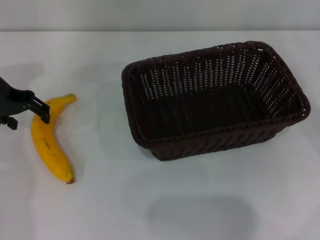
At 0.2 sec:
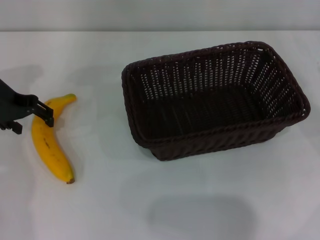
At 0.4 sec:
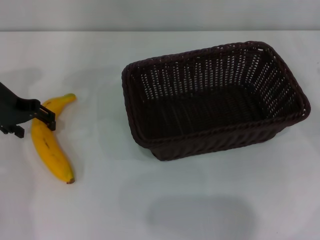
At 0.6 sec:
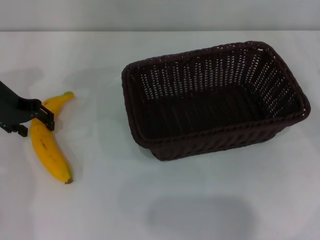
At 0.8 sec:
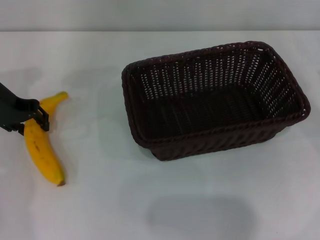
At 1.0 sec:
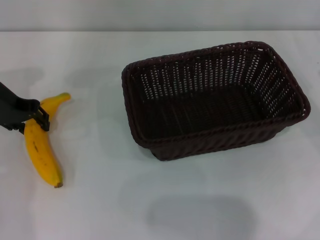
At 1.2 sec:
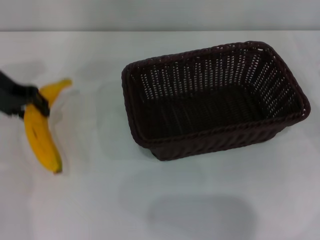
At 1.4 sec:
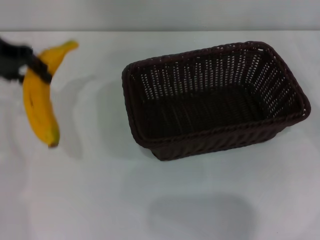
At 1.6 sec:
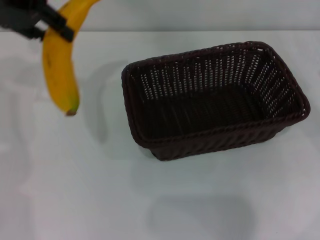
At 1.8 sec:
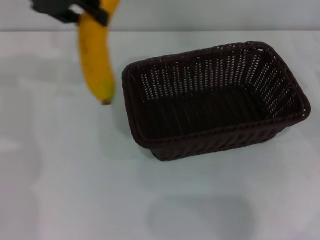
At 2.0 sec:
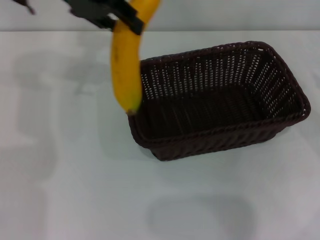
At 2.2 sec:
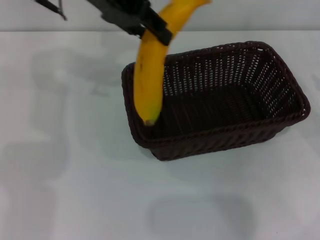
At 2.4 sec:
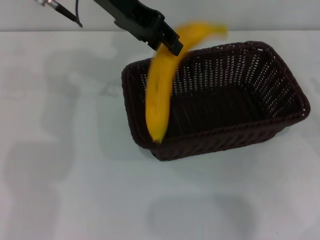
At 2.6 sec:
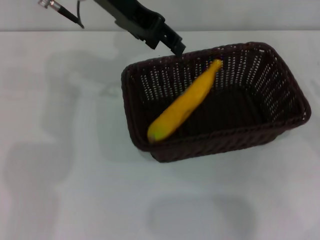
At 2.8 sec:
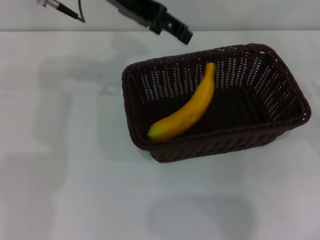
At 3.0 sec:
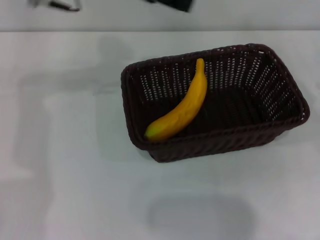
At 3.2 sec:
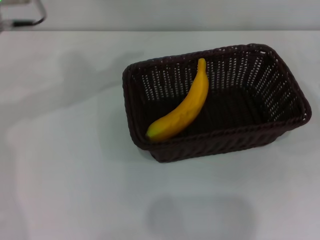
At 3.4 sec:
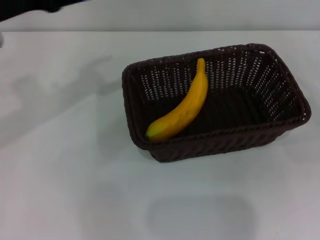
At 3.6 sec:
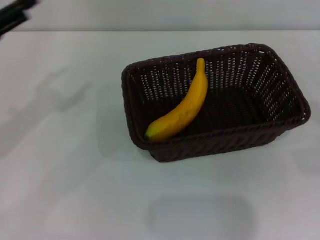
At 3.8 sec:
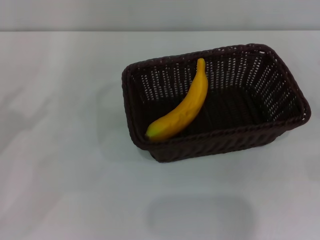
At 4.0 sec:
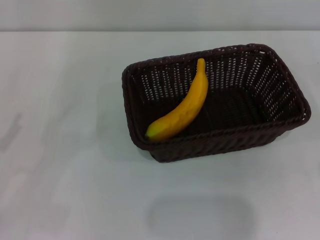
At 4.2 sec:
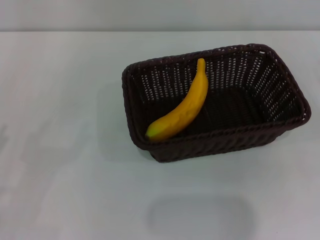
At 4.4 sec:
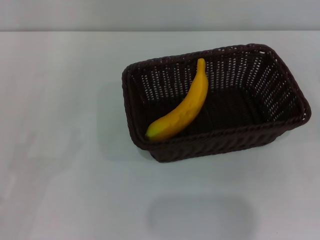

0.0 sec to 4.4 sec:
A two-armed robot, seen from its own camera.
Step, 1.6 sec to 2.6 sec: Place the banana into the dark basket with the left gripper.
0.0 sec to 1.4 sec: The left gripper travels upward by about 10 cm, and closes its fingers.
1.4 sec to 3.0 sec: The left gripper travels to the right by approximately 15 cm, and opens its fingers.
3.0 sec to 4.4 sec: The right gripper heads downward and backward, covering about 10 cm. The left gripper shifts some 40 cm backward, downward and to the left.
